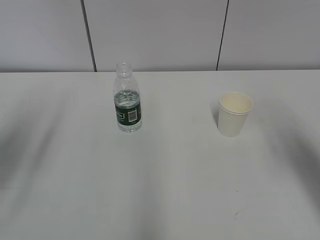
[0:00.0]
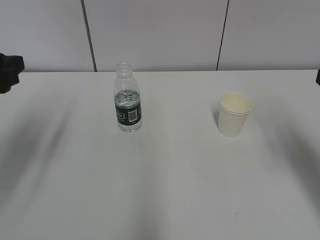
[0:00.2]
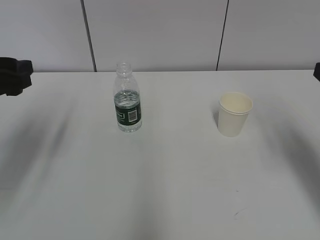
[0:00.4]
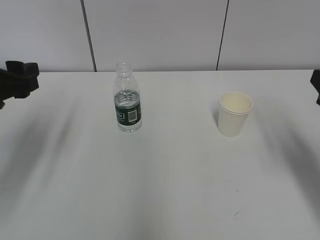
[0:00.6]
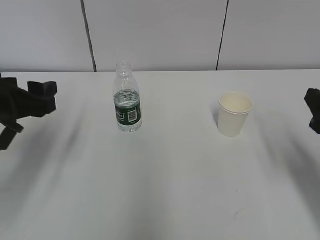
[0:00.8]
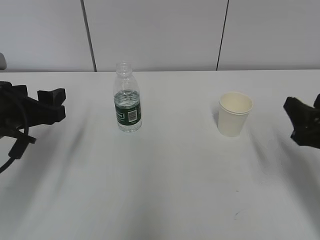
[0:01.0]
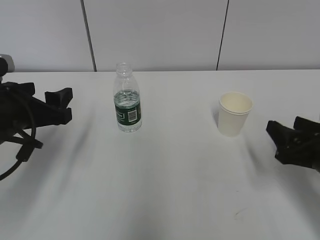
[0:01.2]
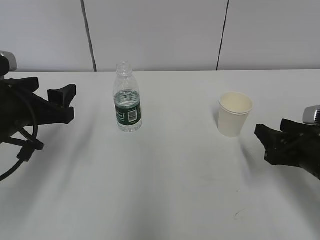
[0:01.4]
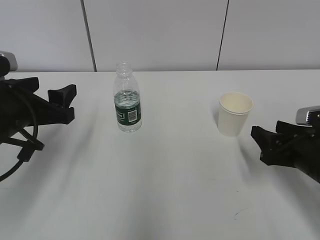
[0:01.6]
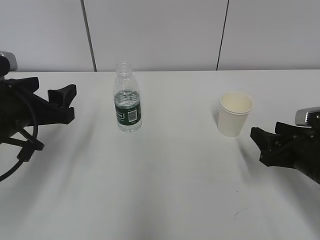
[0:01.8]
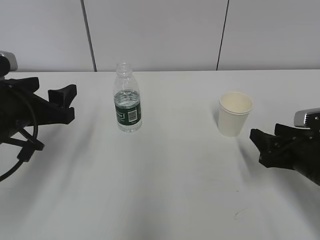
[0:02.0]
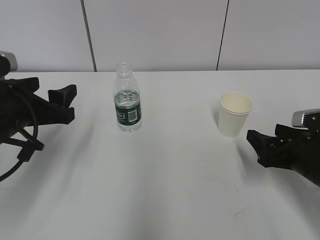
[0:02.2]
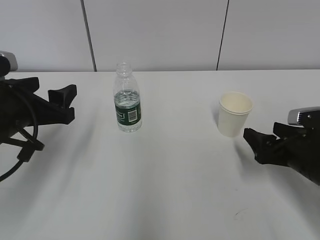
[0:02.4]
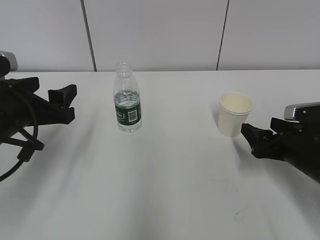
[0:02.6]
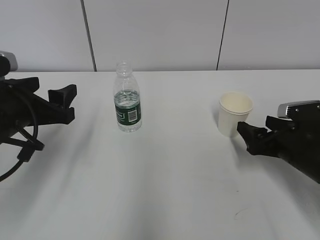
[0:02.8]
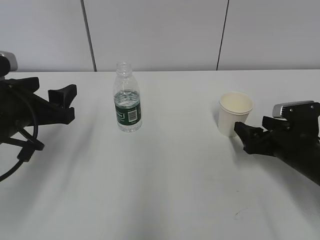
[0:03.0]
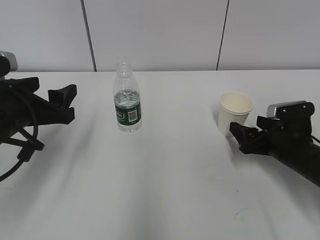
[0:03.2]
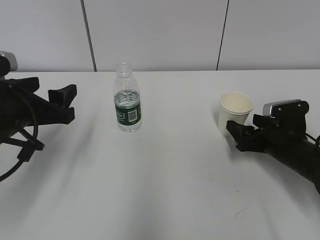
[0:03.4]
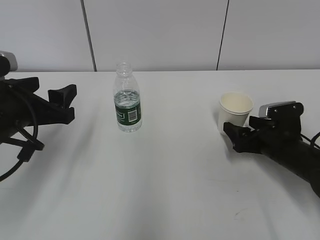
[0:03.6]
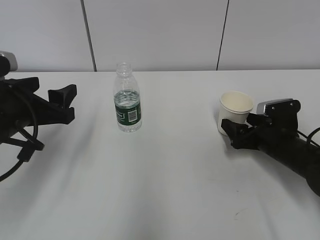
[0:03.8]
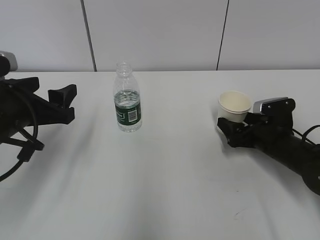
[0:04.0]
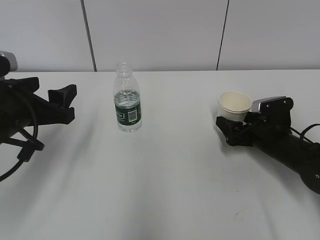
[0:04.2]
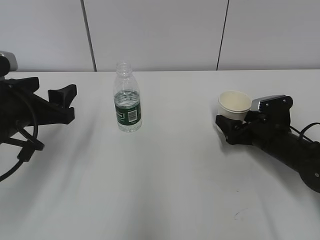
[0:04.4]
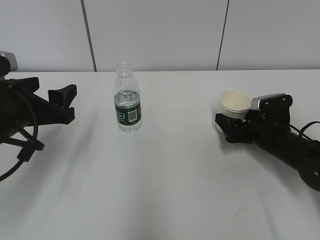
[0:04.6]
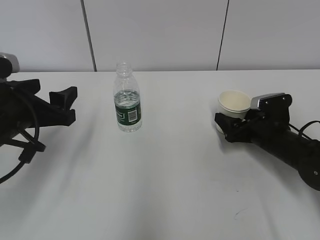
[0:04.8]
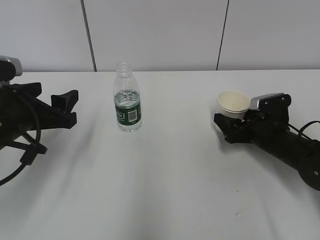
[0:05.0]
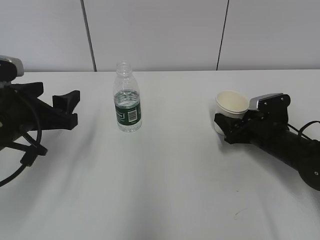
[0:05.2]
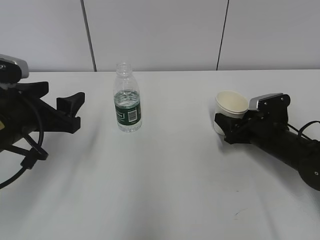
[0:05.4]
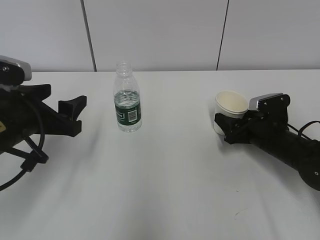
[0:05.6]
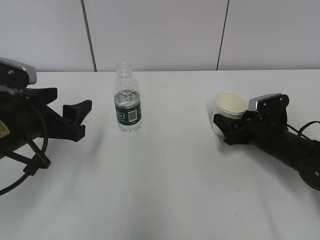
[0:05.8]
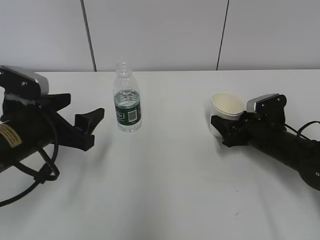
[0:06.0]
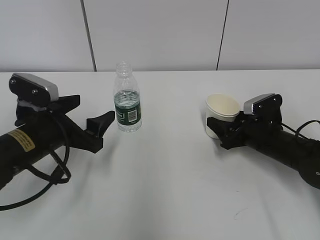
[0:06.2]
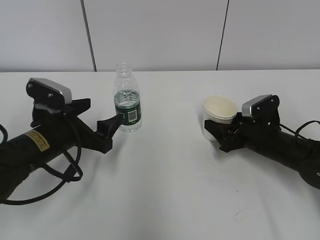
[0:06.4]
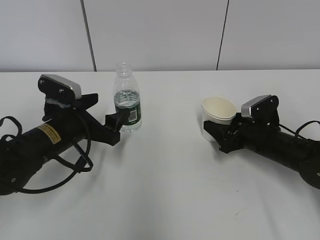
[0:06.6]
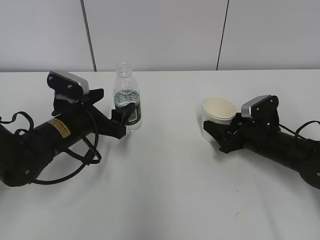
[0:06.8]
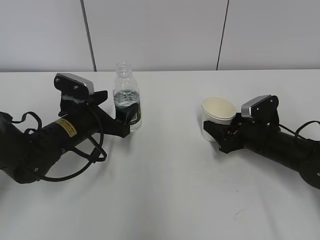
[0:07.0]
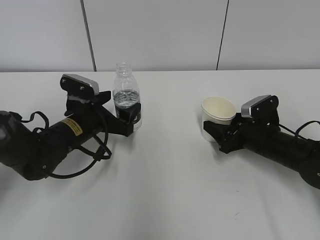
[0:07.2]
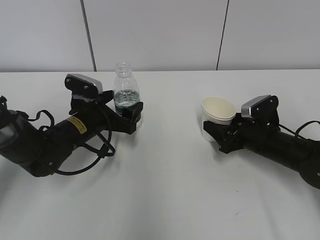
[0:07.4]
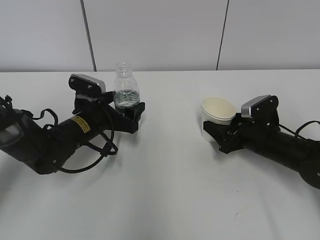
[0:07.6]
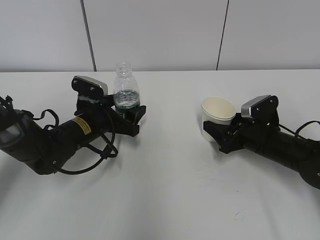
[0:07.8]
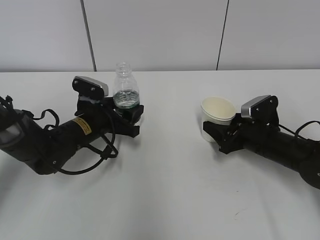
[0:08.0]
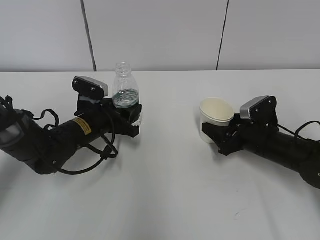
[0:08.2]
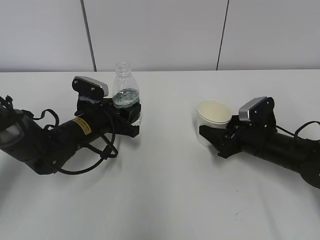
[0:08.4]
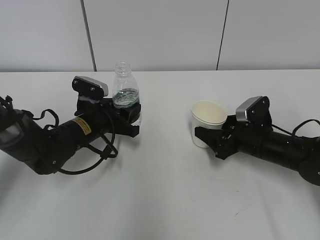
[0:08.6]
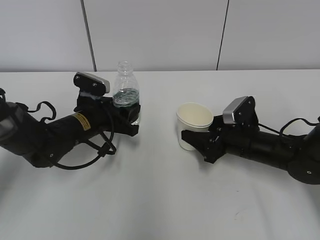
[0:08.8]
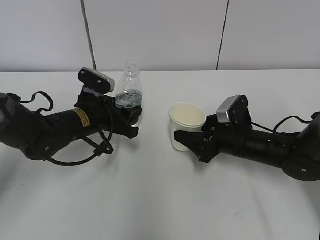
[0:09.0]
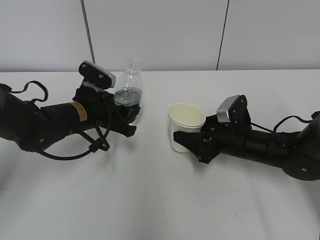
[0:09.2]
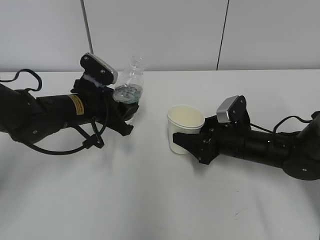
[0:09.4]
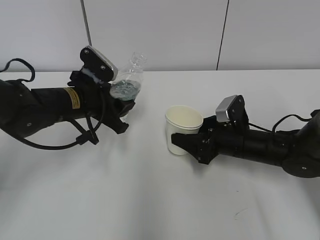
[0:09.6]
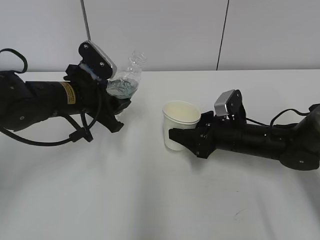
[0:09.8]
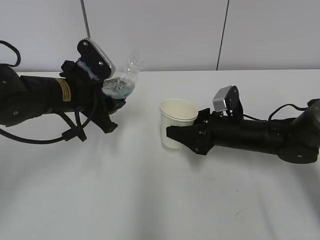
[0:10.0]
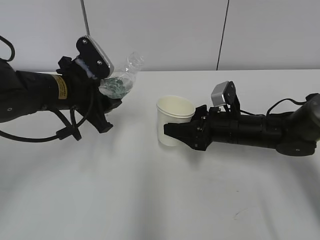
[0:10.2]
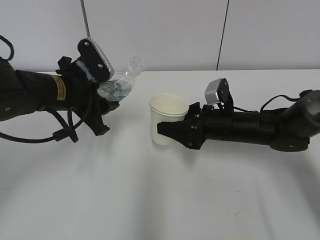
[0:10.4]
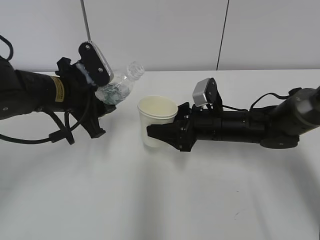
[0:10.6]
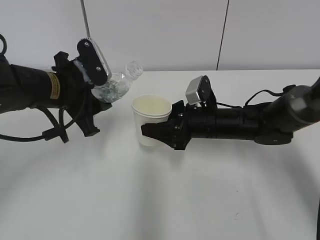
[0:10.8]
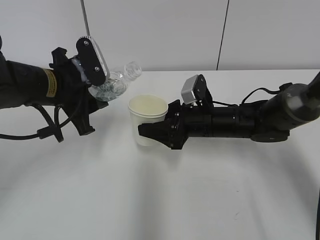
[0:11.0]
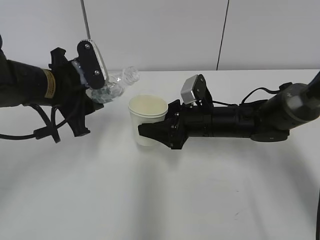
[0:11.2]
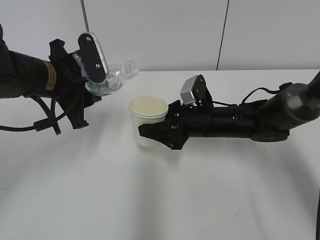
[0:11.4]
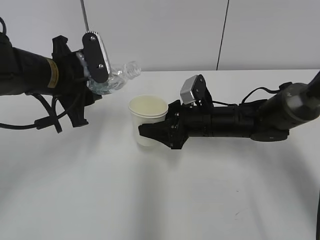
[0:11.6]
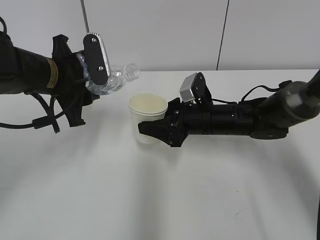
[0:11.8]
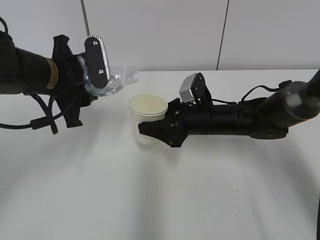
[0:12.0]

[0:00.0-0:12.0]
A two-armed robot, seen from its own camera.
Step, 0:00.0 to 0:06.2: Lift the paper cup with the right hand.
Step, 0:06.6 to 0:10.0: Lift the paper cup with the right hand.
0:00.0 to 0:01.6: The left gripper shifts some 15 cm downward, to the right and forward, while the right gripper is displaced downward by roughly 15 cm.
0:01.6 to 0:03.0: The right gripper shifts by some 5 cm, and opens.
0:03.0 to 0:04.4: The right gripper heads forward, covering some 5 cm.
0:04.4 to 0:06.0: The right gripper closes.
0:06.0 to 0:07.6: The left gripper shifts approximately 15 cm forward, downward and to the right.
0:07.6 to 0:09.0: The left gripper closes its fingers. Meanwhile the right gripper travels to the left by some 5 cm.
0:09.0 to 0:10.4: The left gripper travels upward by roughly 10 cm.

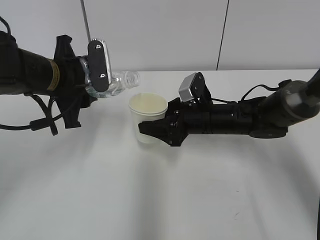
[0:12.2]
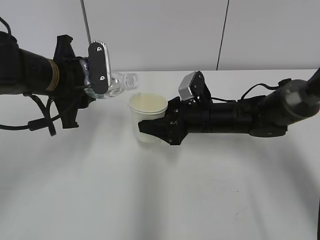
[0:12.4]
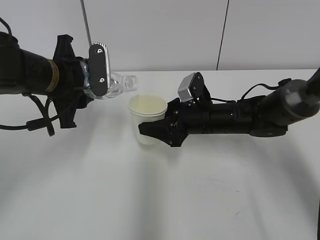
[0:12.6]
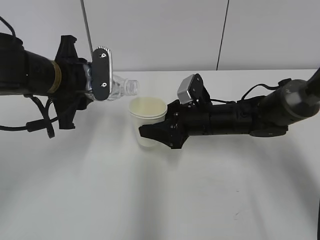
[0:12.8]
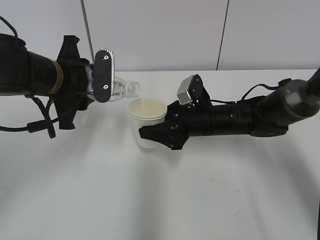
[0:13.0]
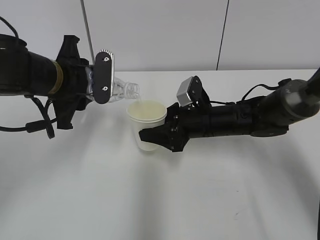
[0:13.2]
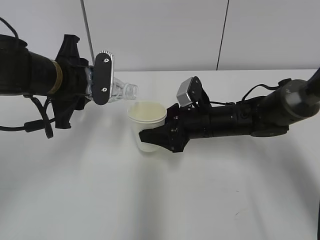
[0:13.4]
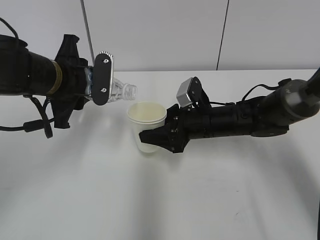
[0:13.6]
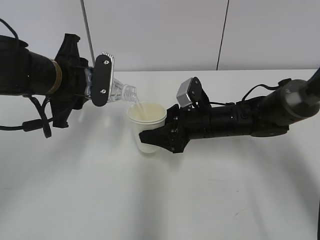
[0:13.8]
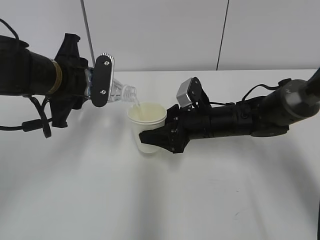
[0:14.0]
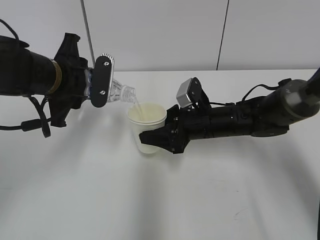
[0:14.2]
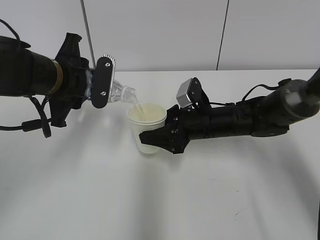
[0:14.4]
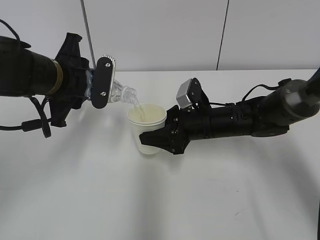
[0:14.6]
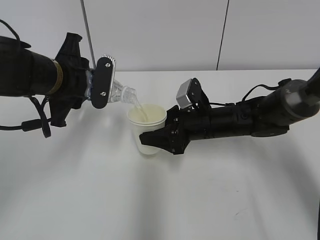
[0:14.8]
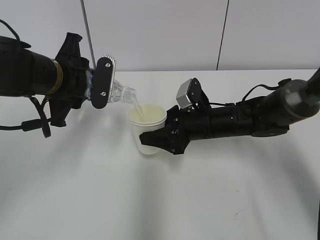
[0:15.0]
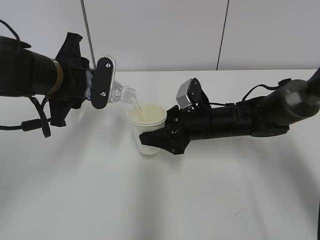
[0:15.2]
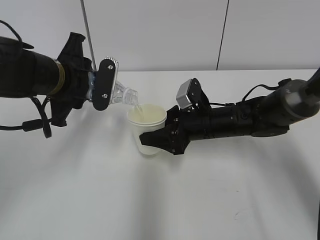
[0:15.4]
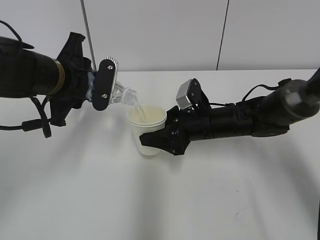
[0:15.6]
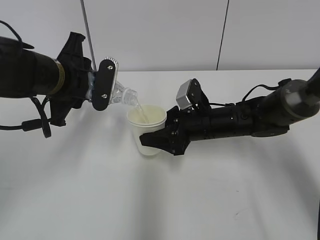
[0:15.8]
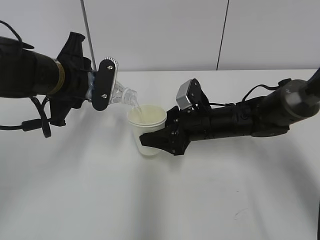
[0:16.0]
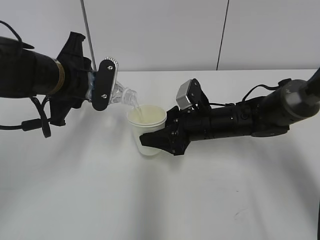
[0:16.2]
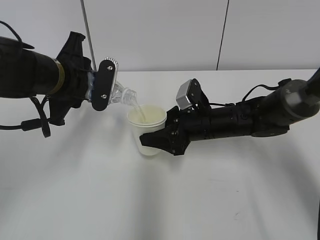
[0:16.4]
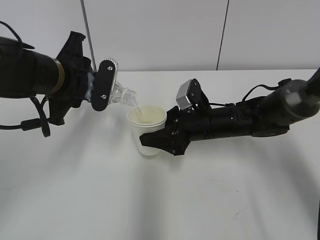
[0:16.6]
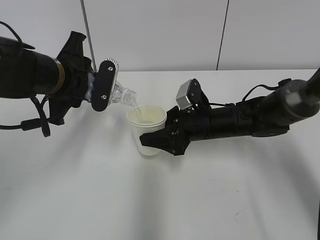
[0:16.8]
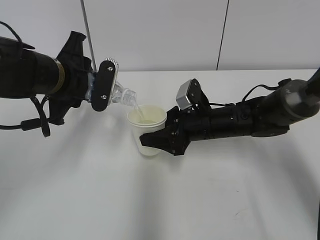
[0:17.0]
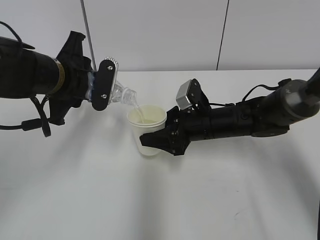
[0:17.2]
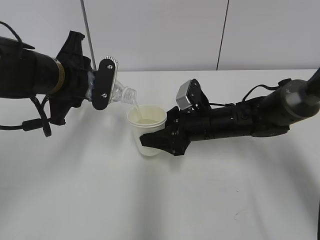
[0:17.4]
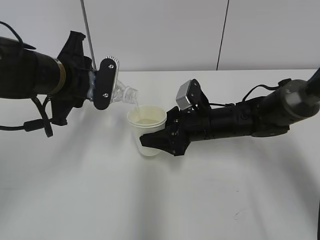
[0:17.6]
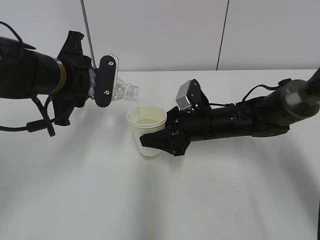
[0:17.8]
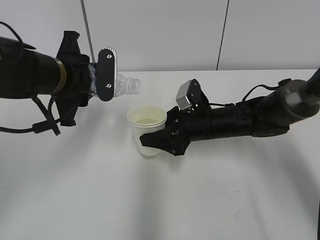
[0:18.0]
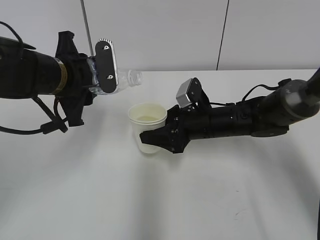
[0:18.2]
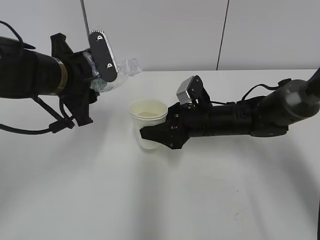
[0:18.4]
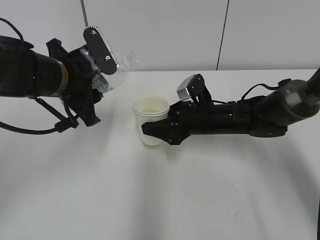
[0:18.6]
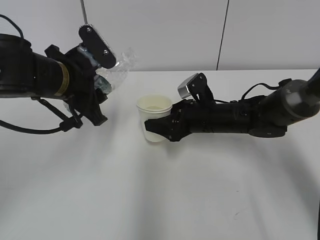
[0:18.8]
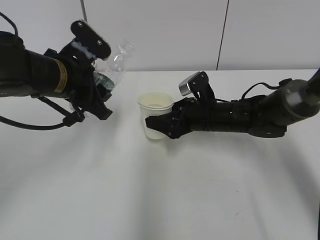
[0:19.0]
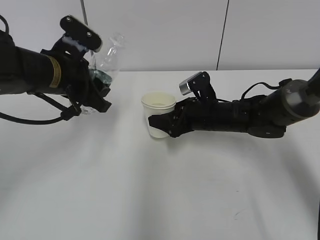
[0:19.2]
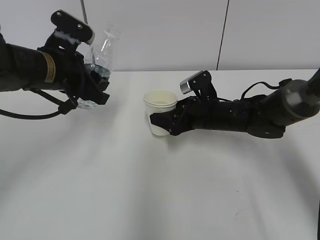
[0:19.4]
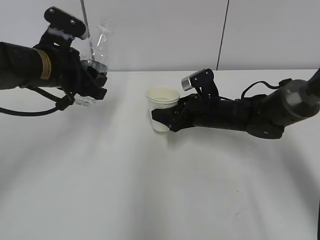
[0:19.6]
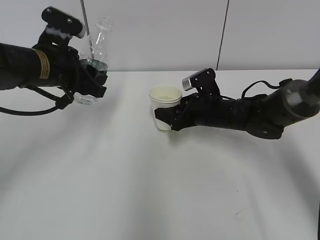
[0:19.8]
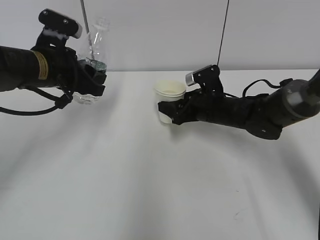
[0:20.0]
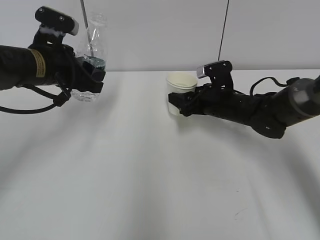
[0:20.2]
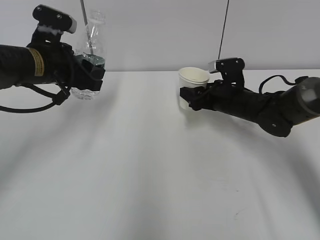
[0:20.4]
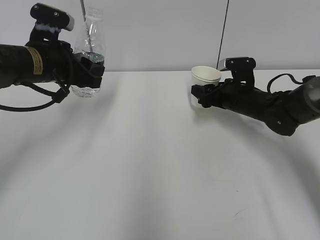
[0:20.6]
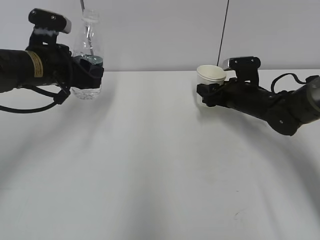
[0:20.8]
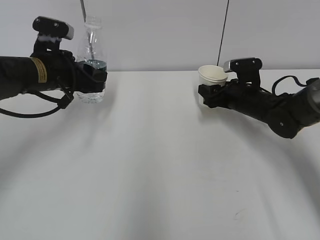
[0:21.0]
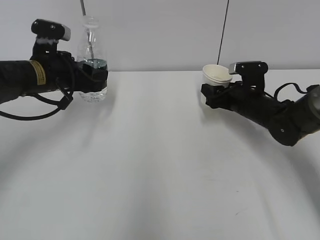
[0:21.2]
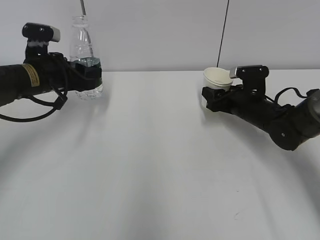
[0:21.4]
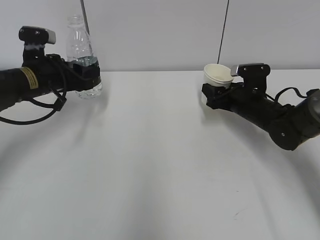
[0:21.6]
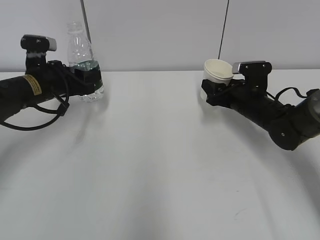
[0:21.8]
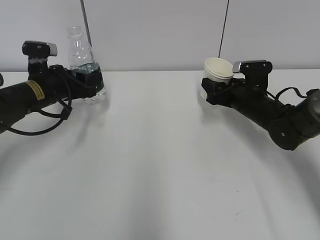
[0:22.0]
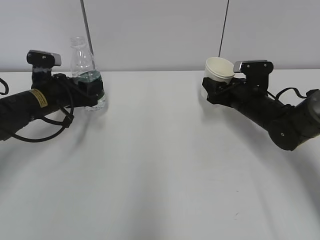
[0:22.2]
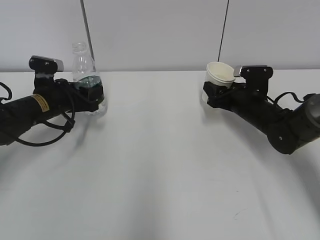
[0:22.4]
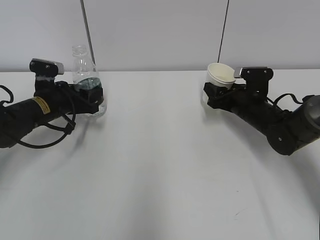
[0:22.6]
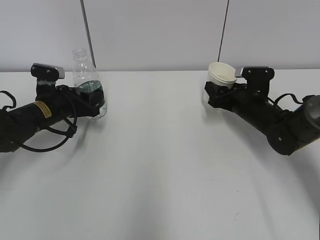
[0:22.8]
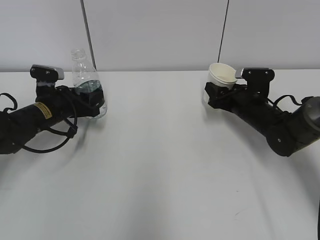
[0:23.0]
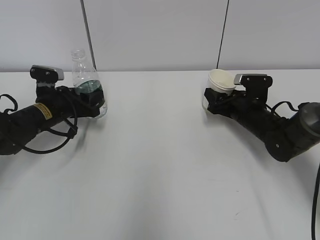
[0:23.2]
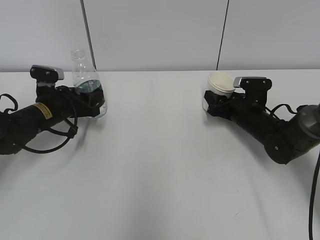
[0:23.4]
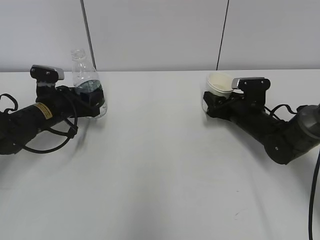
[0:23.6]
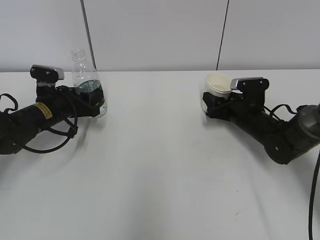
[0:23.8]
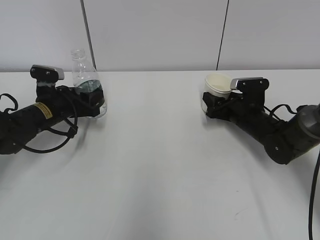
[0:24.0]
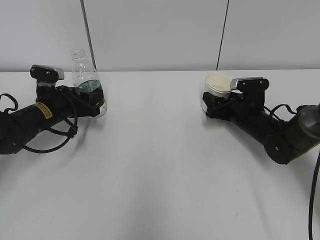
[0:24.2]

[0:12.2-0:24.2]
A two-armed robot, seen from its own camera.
Step, 0:14.2 to 0:17.2: Collect water with the left hand.
Step, 0:17.4 to 0:21.0: Place the paper cup with the right hand.
Step, 0:21.2 to 0:22.2: Place the water bottle with the left hand.
0:12.2 to 0:13.8: There are only small adjustments of the grippers.
0:13.8 to 0:15.2: Both grippers stay put.
0:15.2 to 0:16.6: Neither gripper changes place.
0:19.8 to 0:21.2: The right gripper is displaced to the right by about 10 cm.
0:21.2 to 0:22.6: The left gripper moves downward, roughly 10 cm.
0:22.6 to 0:24.2: There are only small adjustments of the grippers.
